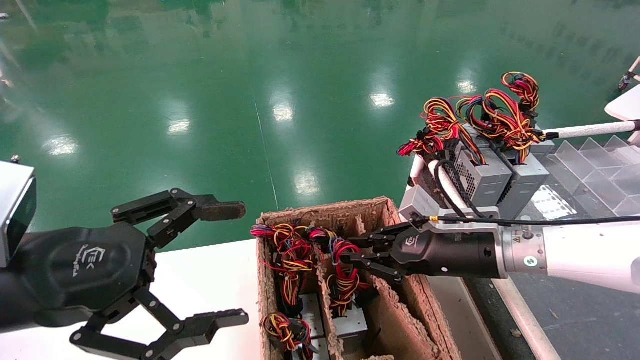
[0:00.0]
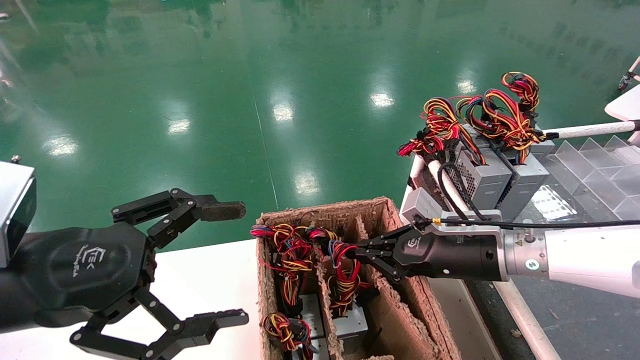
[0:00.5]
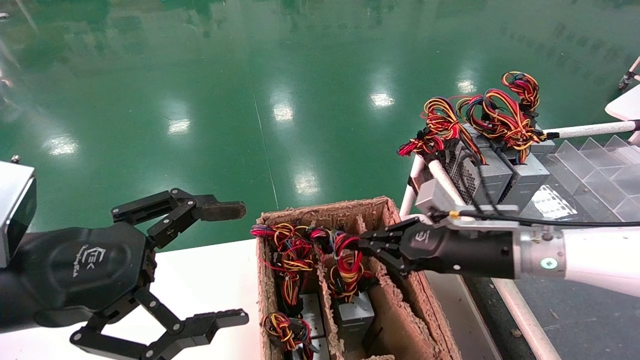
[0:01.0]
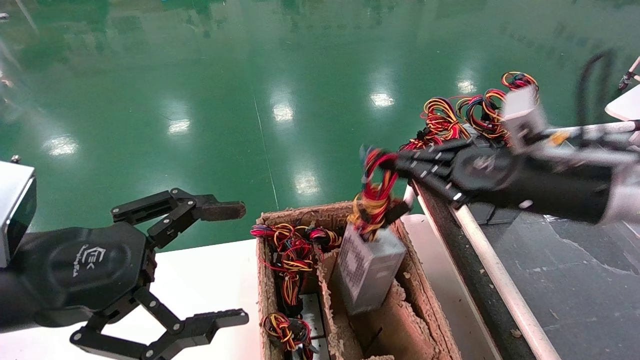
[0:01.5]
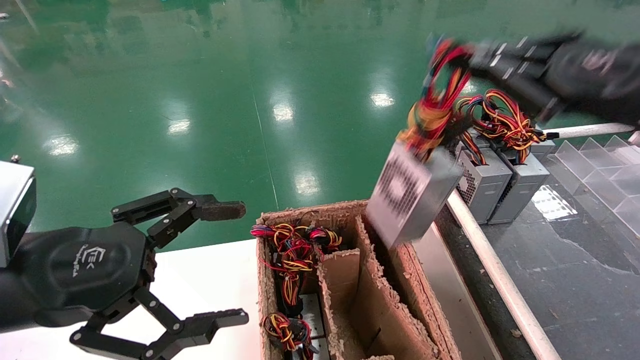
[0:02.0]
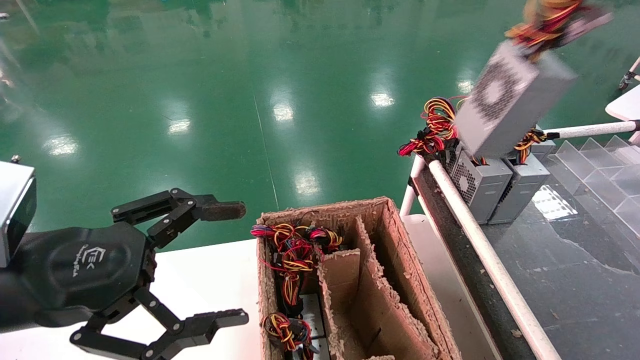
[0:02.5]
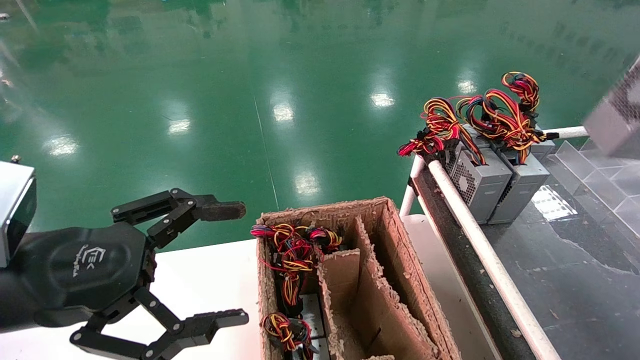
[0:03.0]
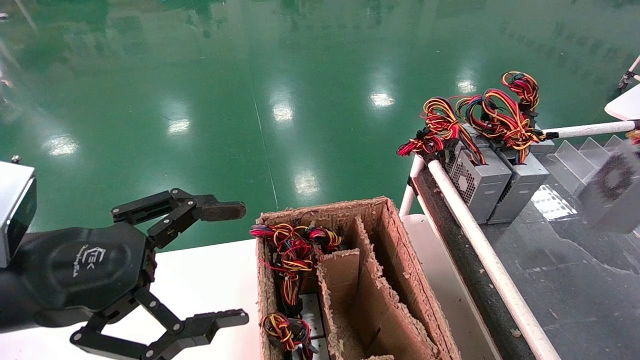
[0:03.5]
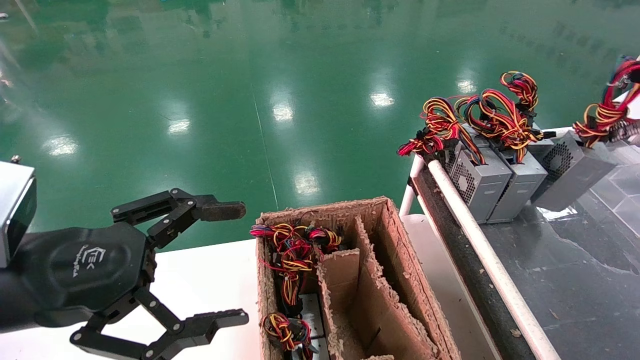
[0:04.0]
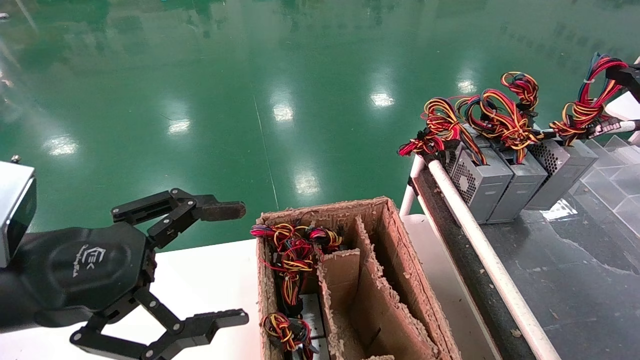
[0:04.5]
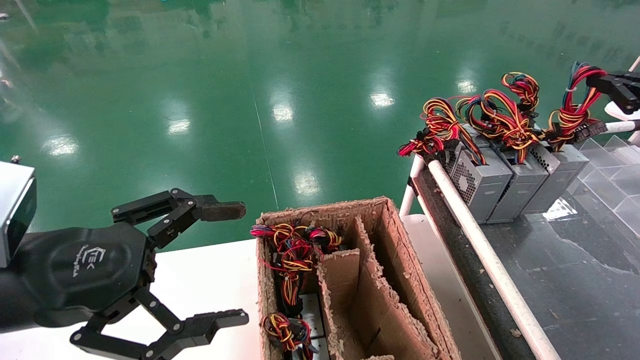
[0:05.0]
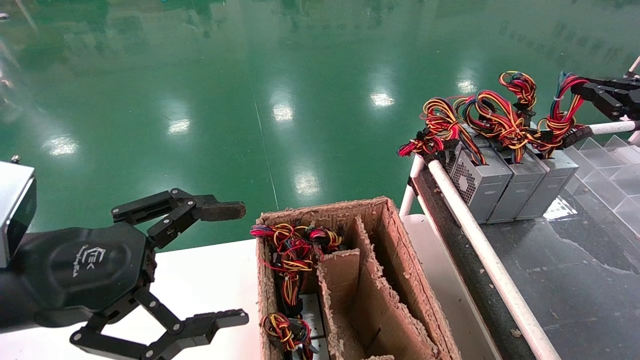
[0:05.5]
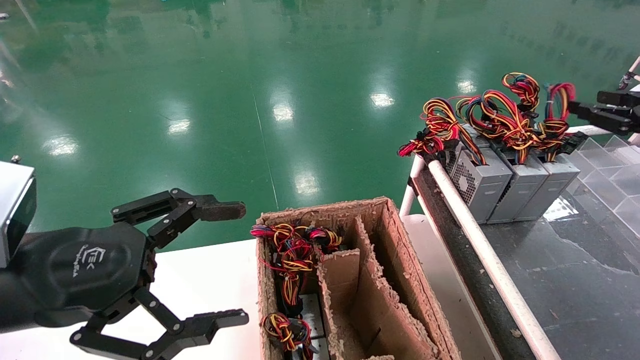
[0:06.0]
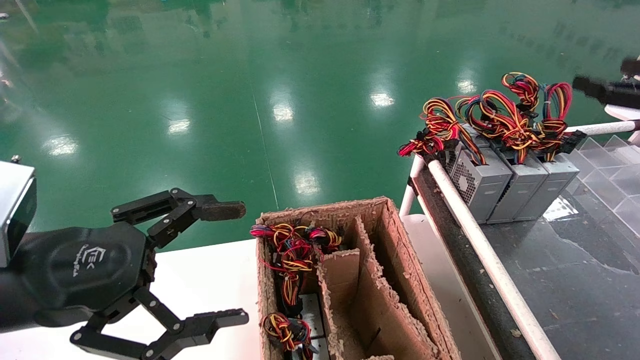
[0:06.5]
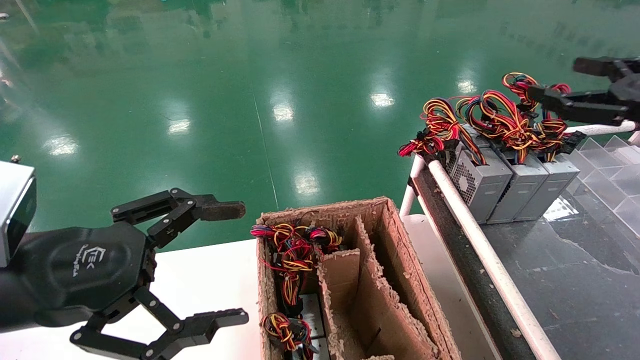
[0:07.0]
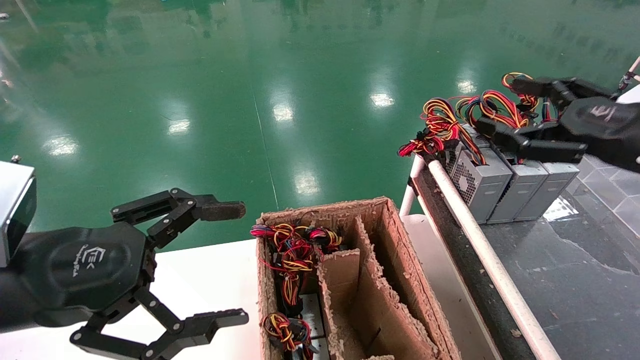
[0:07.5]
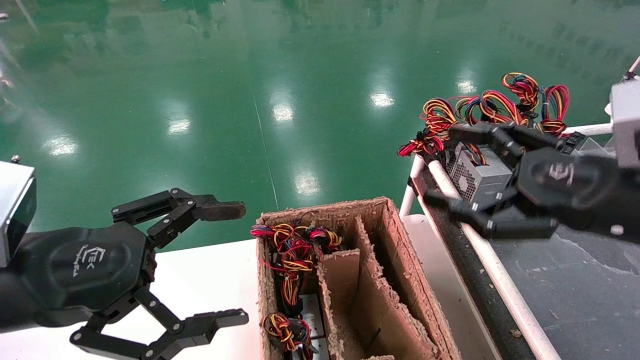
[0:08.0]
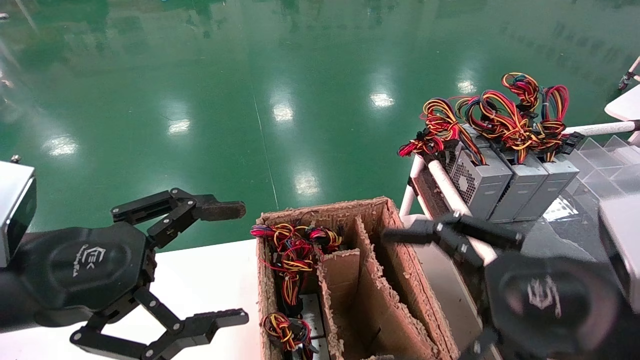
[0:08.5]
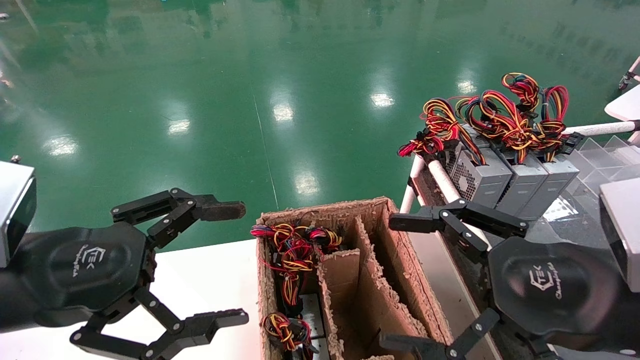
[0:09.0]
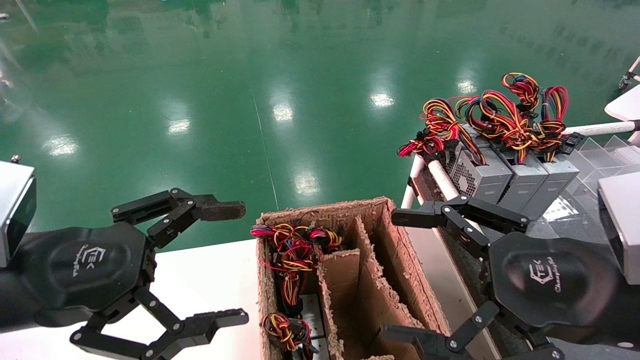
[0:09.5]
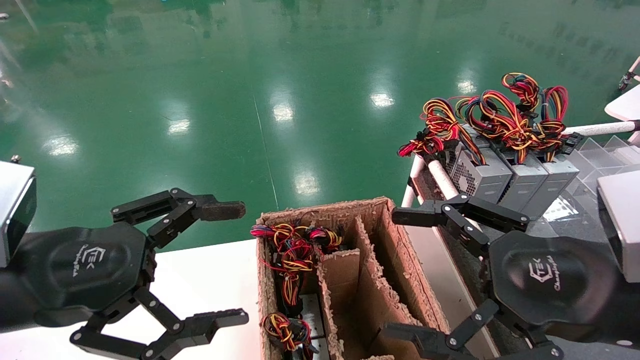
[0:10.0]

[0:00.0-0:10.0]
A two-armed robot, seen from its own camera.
Step, 0:00.5 to 0:05.0: Place the power supply on the operating table.
0:00.0 to 0:02.0: The right gripper moves upward, backward and to the right, about 25 cm.
0:02.0 to 0:04.0: The right gripper heads to the right, covering about 20 cm.
0:04.0 to 0:06.0: The grippers make only small movements.
0:06.0 to 0:08.0: The right gripper moves to the left and backward, roughly 20 cm, and opens.
0:08.0 to 0:10.0: The right gripper heads backward, covering approximately 5 cm.

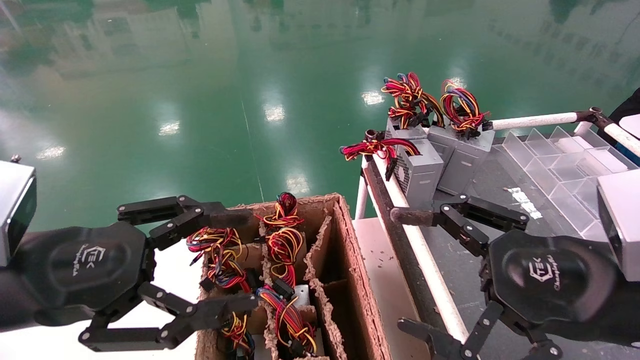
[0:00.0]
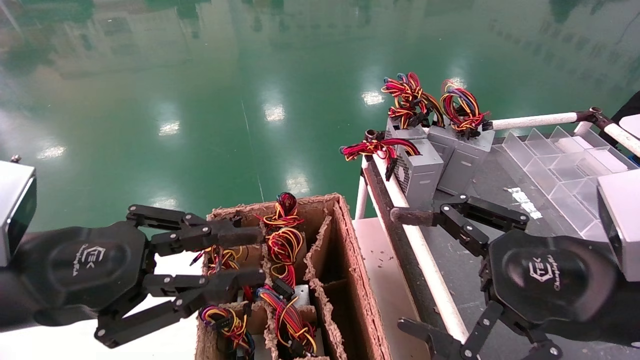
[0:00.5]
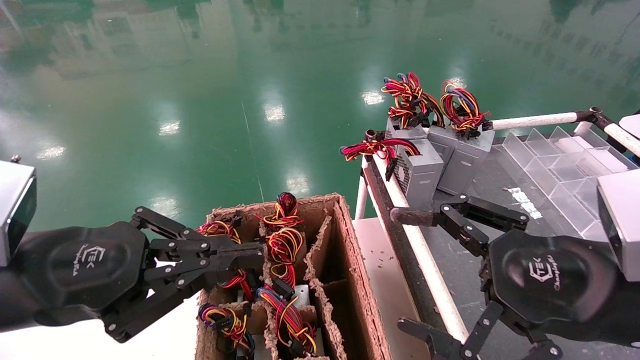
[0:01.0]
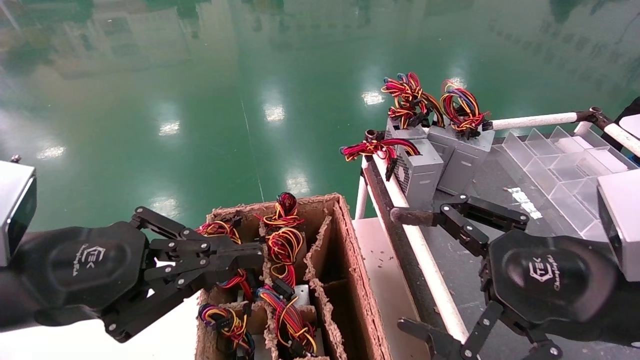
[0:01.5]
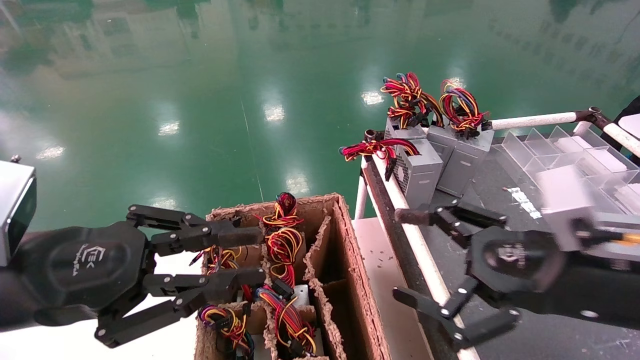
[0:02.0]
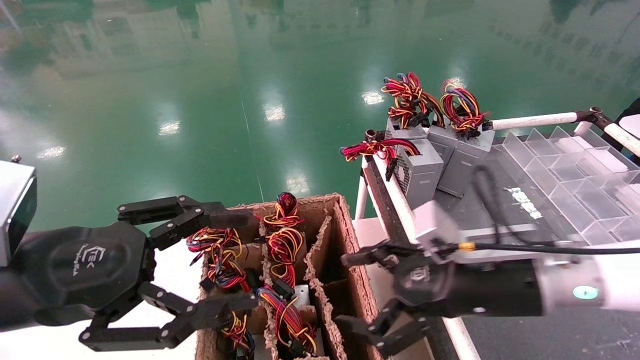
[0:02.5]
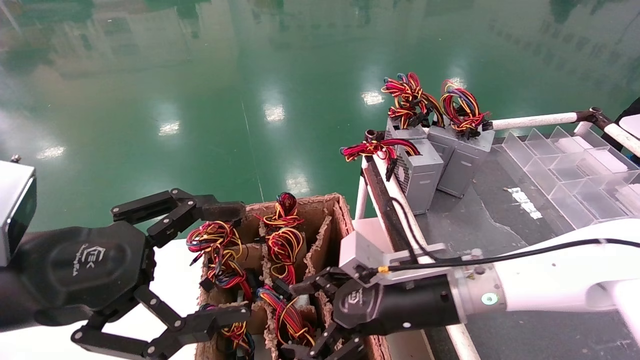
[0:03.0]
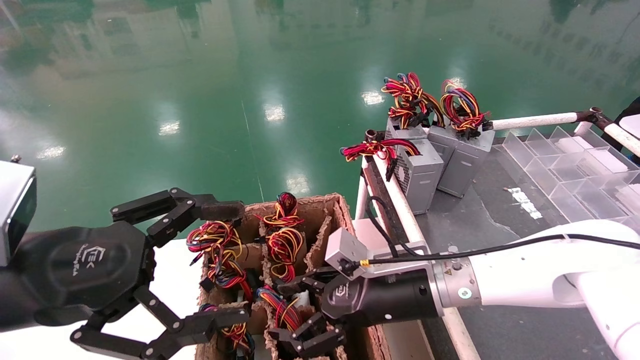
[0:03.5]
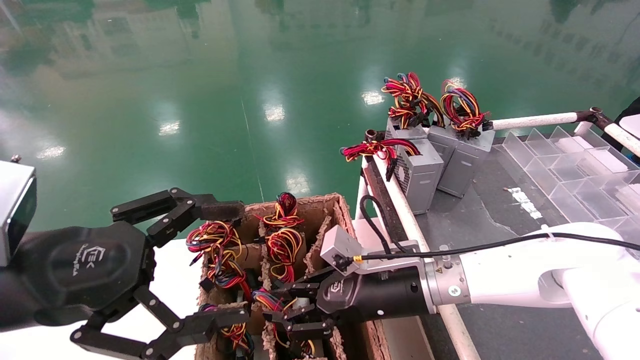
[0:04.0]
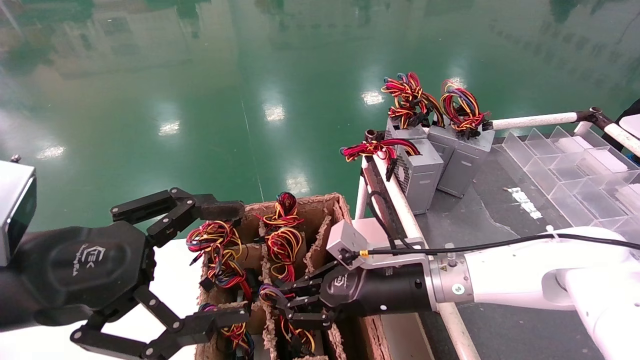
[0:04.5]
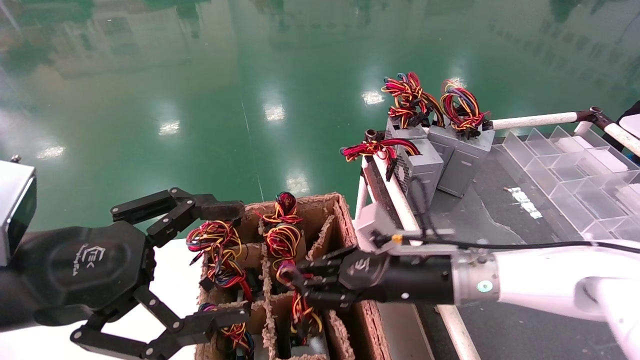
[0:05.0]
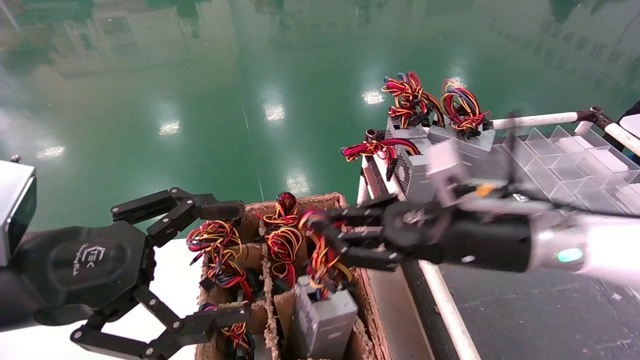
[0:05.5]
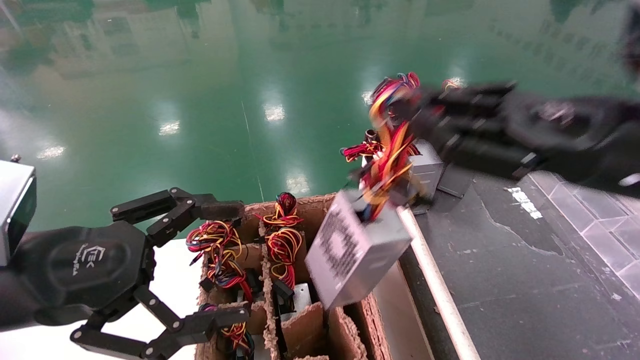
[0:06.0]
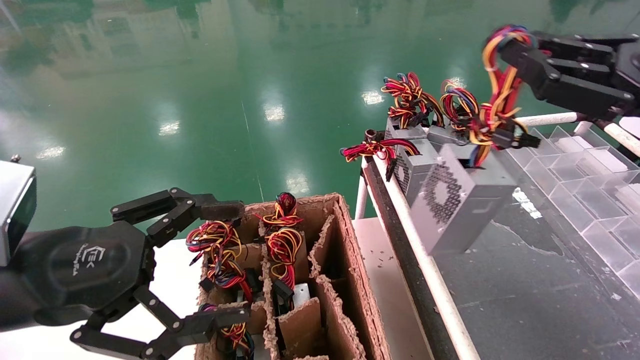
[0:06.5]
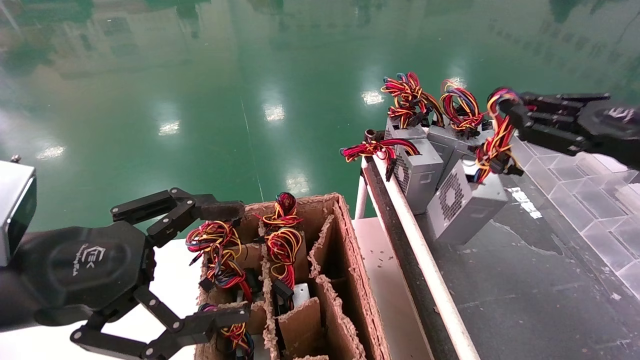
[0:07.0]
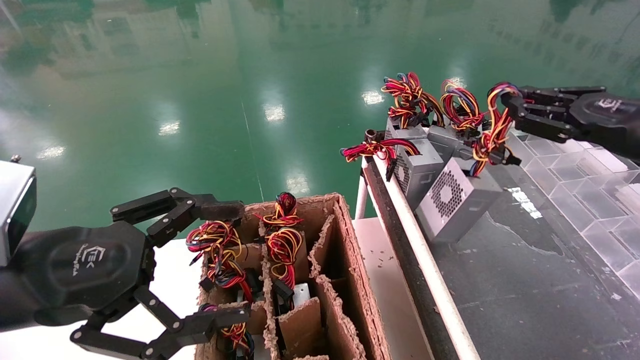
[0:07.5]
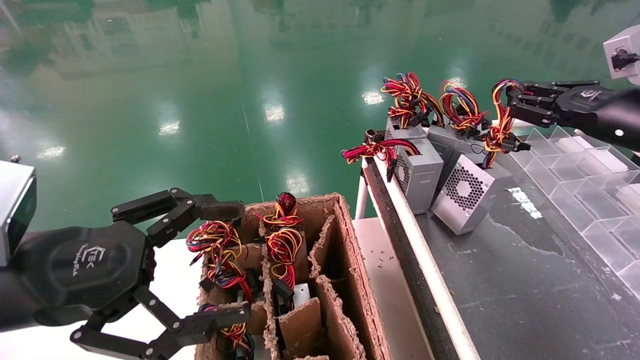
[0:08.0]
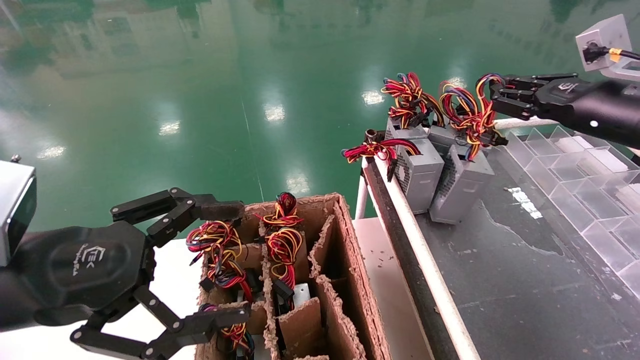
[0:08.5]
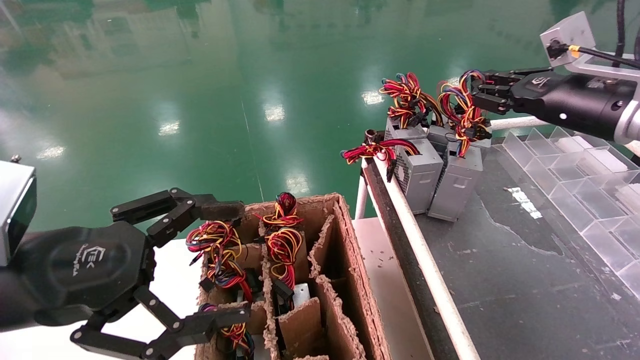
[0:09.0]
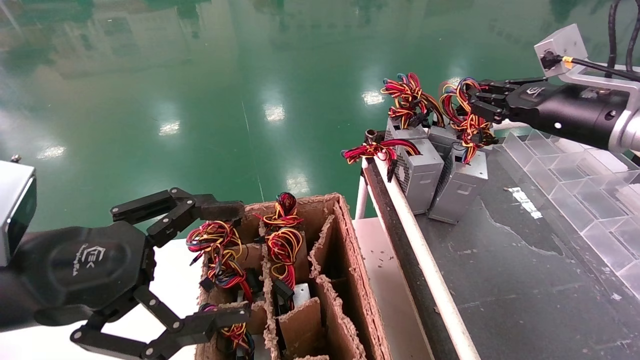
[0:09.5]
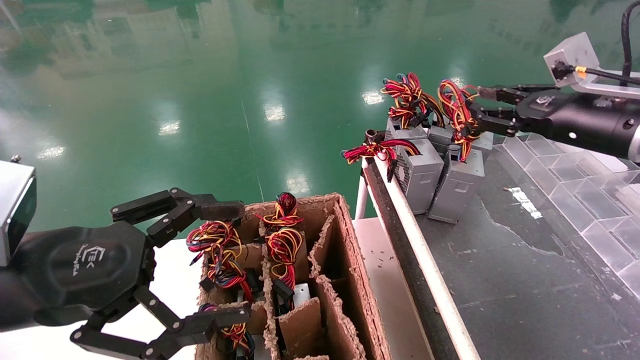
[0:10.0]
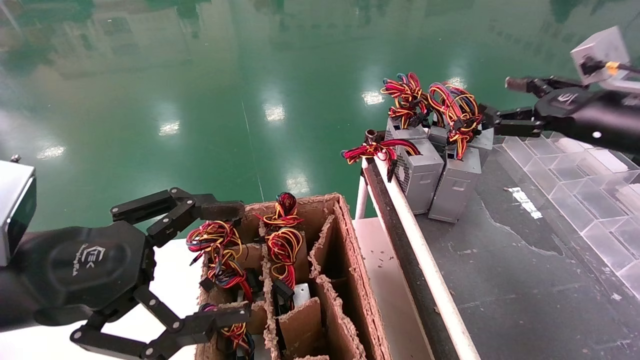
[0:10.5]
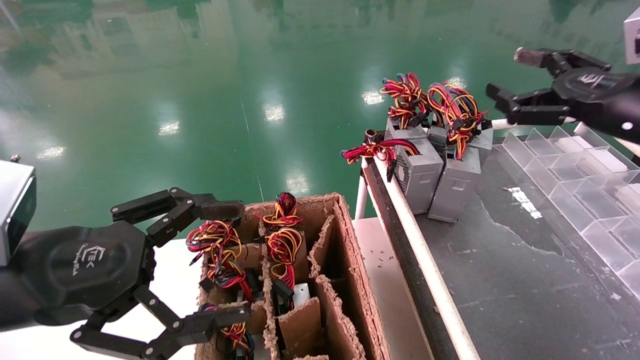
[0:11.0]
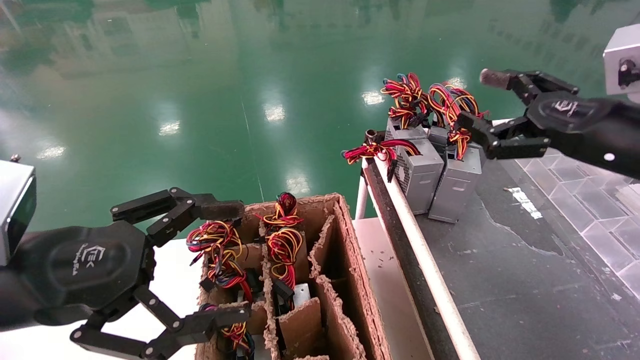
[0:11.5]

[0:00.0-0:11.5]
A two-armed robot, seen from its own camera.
Step, 0:01.0 to 0:04.5: Grab and lift the power supply from the large box.
Step, 0:05.0 to 0:10.0: Place the power supply on the operating table.
0:00.0 to 0:02.0: The right gripper shifts by some 5 cm. The left gripper closes its fingers.
0:02.0 to 0:04.0: The left gripper opens up. Meanwhile the right gripper travels to the left, forward and downward by approximately 20 cm, and closes.
0:04.0 to 0:06.0: The right gripper goes about 30 cm upward, to the right and backward, and closes its fingers.
0:06.0 to 0:07.5: The right gripper goes approximately 15 cm to the right and forward.
0:07.5 to 0:09.5: The right gripper moves forward, about 10 cm.
0:09.5 to 0:11.5: The right gripper is displaced backward by approximately 10 cm, and opens.
